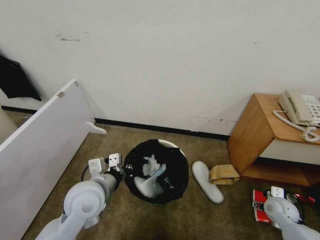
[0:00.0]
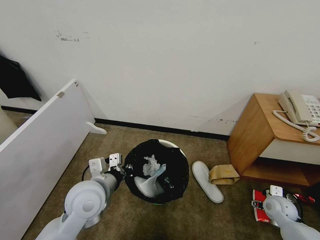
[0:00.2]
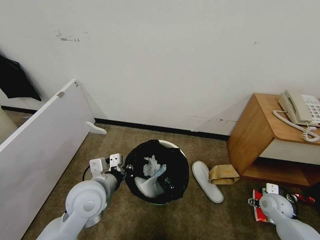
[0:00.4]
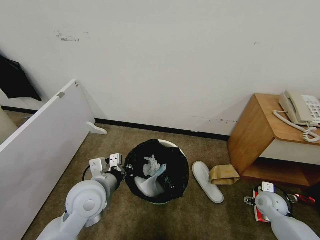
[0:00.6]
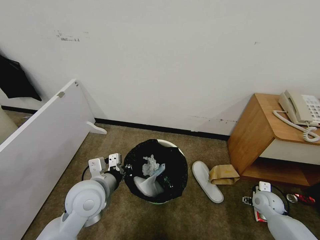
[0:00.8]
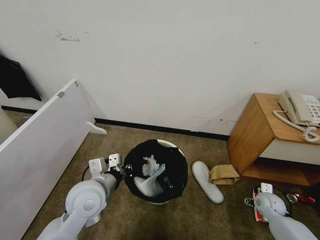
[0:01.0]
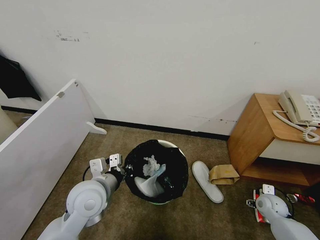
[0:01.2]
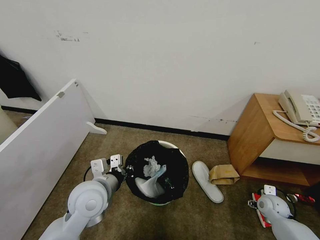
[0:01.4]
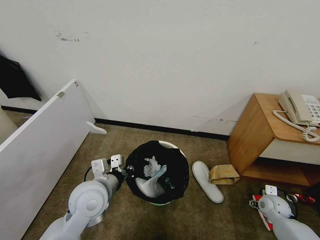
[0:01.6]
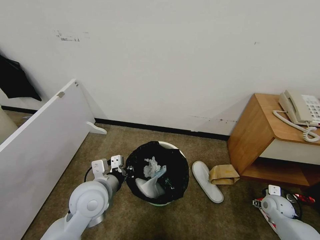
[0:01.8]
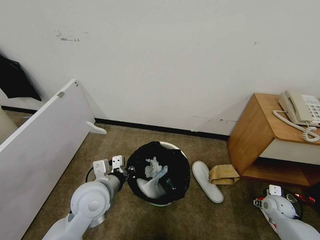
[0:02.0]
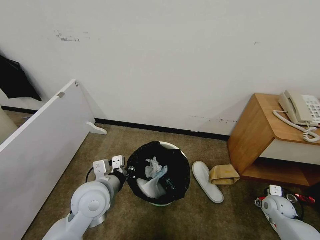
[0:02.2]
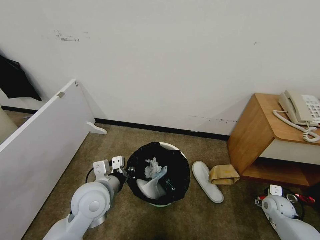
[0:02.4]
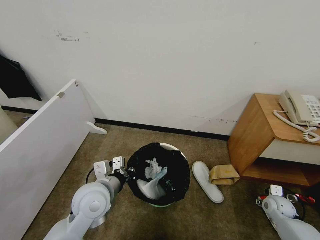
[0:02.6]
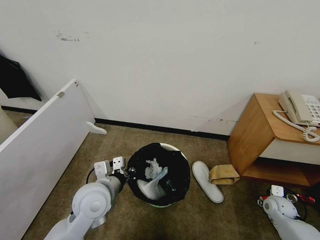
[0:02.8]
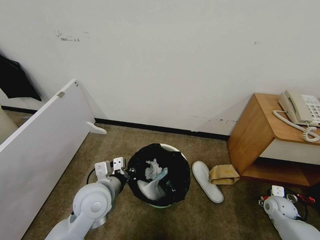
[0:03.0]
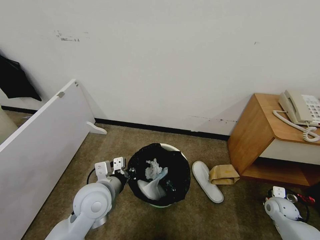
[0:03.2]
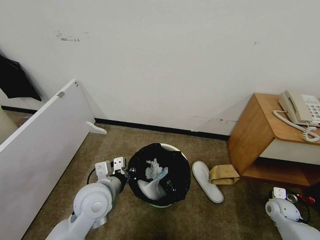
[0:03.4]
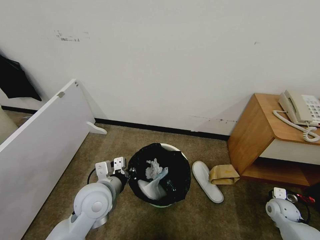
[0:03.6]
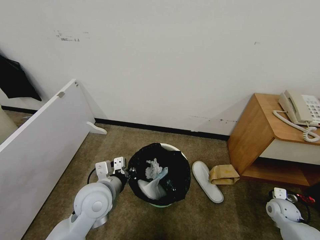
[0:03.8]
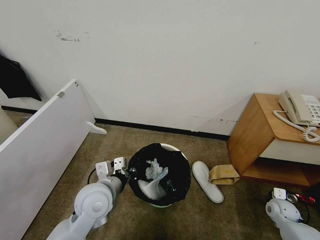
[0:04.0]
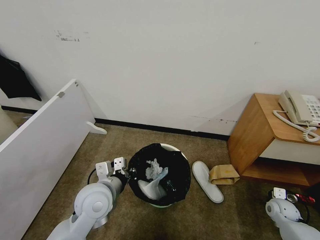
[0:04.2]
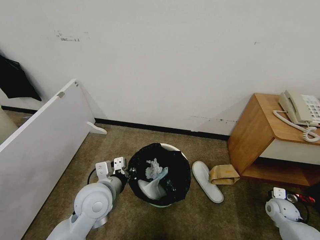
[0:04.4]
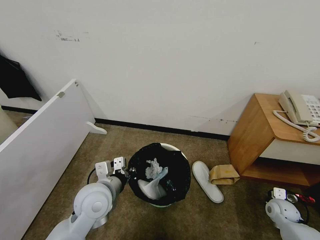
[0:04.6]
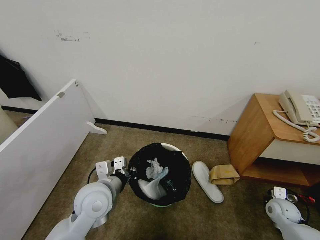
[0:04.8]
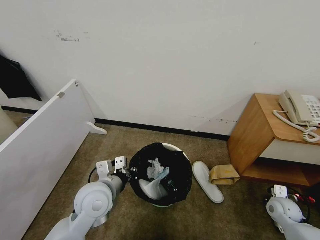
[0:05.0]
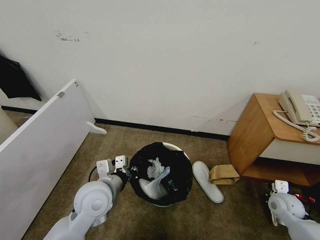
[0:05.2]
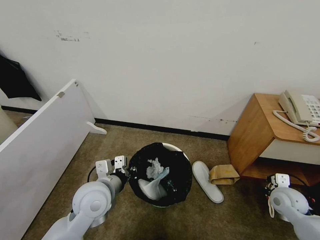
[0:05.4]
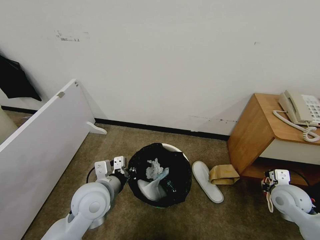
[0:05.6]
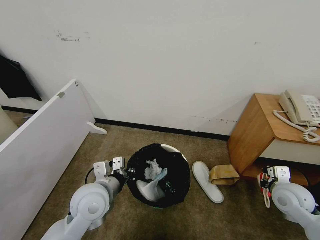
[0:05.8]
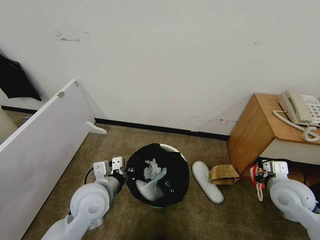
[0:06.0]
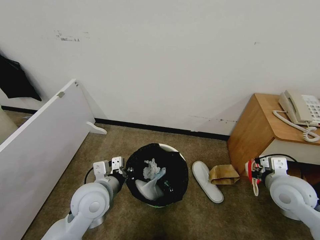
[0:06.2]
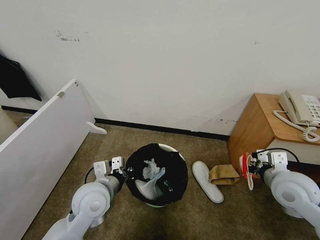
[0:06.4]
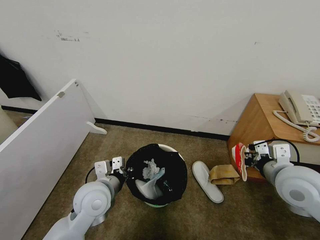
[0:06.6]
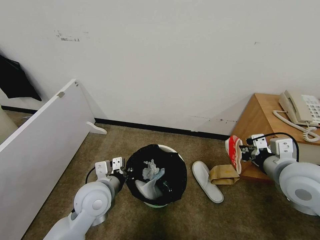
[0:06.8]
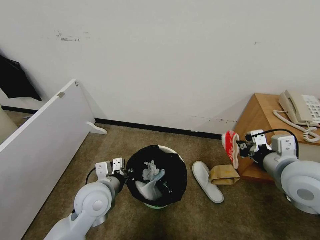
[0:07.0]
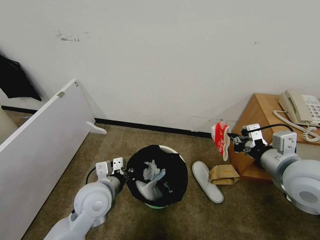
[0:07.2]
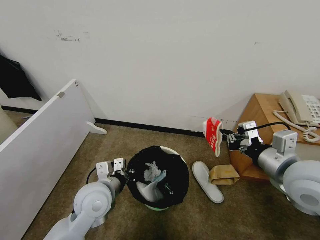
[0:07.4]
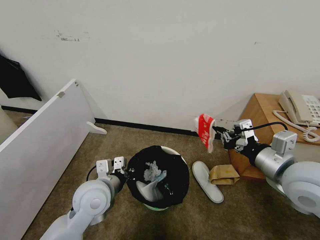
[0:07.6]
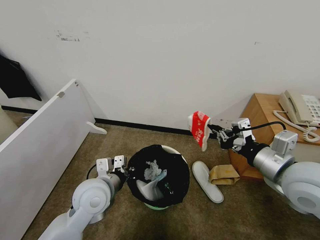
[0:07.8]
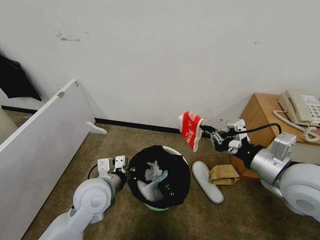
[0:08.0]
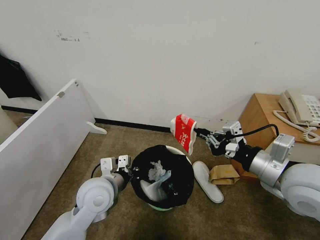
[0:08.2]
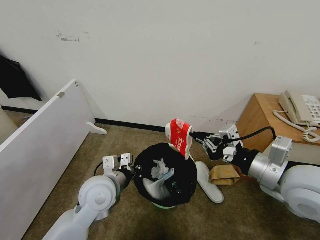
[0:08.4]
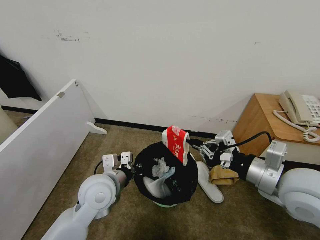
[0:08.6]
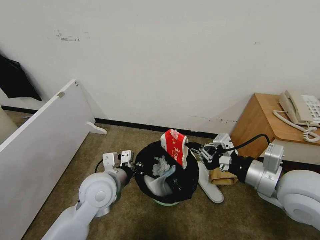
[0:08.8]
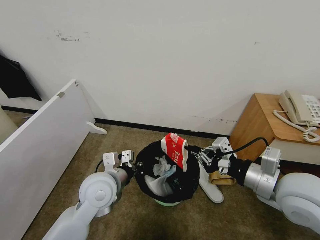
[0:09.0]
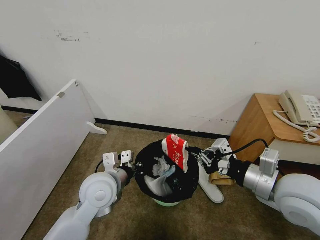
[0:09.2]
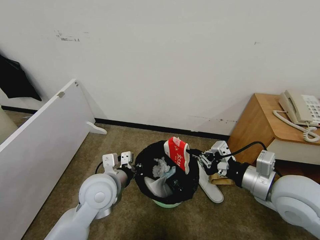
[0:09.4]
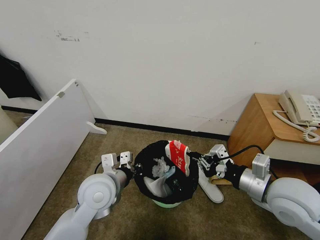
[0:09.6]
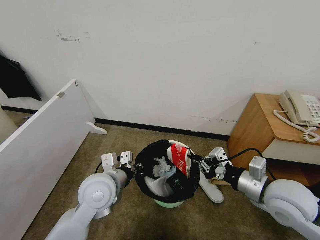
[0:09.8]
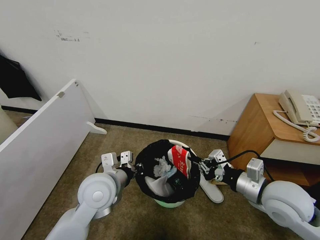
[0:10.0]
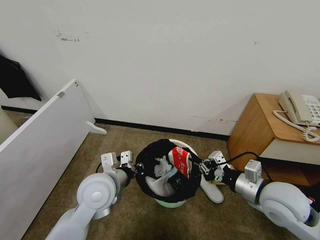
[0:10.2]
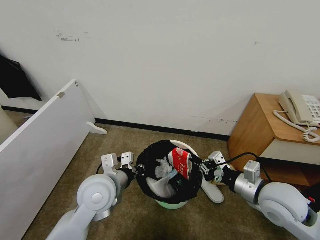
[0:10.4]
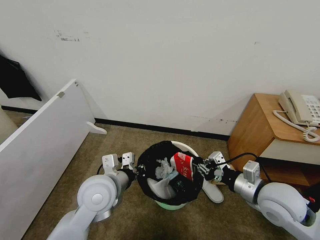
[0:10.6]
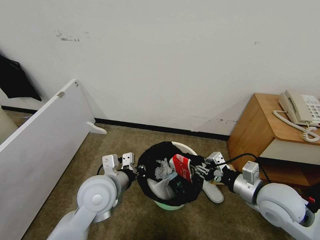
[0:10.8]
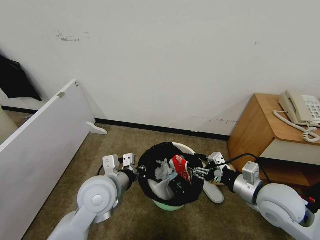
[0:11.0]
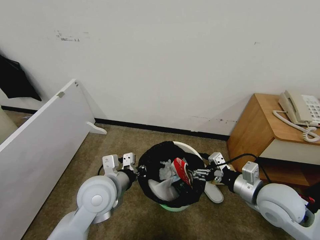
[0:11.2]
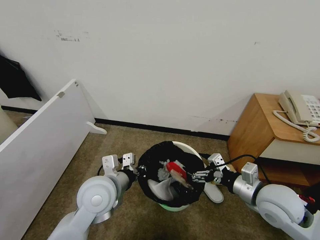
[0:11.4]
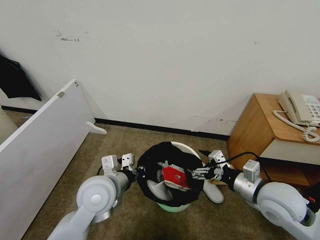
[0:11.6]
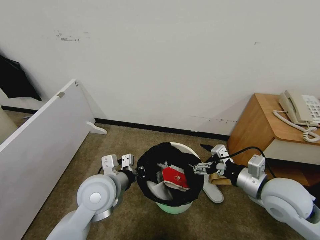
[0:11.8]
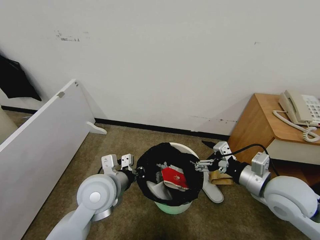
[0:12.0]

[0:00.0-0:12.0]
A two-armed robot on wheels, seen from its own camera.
Task of the whole recording: Pick up the trash bin, then pick up the garbage from the floor and place it into the trash bin.
0:00.0 to 0:03.0: There are only small adjustments of the grippers.
0:03.0 to 0:04.4: The right gripper closes its fingers.
0:04.4 to 0:06.0: The right gripper moves upward and to the left, approximately 20 cm.
0:06.0 to 0:07.6: The right gripper is displaced upward and to the left by some 15 cm.
0:09.0 to 0:10.4: The right gripper heads downward, covering roughly 10 cm.
0:10.4 to 0:12.0: The right gripper opens up.

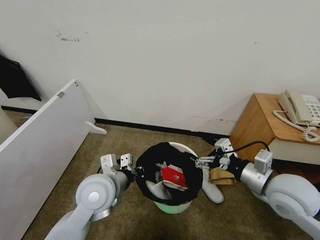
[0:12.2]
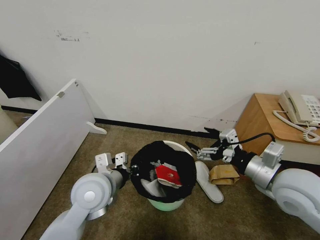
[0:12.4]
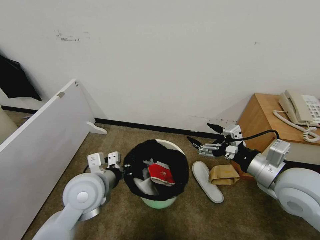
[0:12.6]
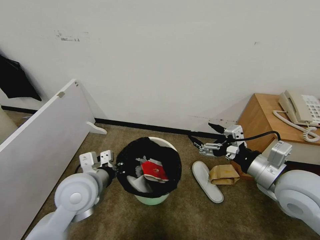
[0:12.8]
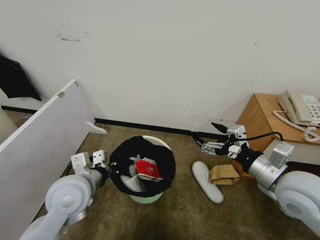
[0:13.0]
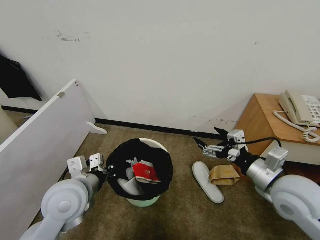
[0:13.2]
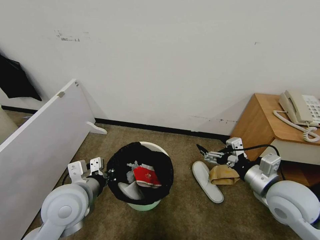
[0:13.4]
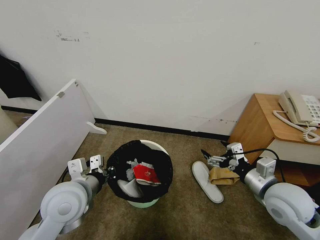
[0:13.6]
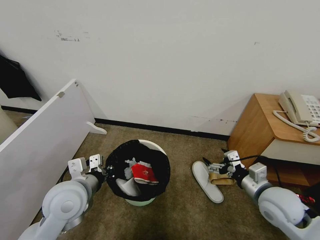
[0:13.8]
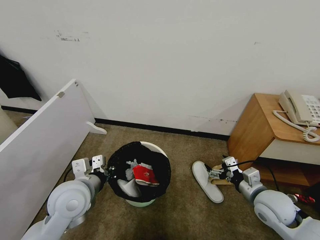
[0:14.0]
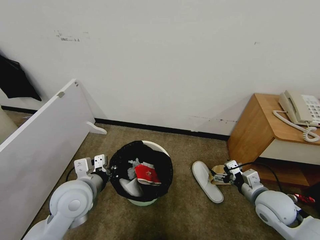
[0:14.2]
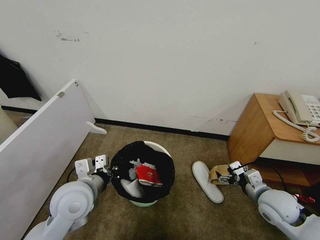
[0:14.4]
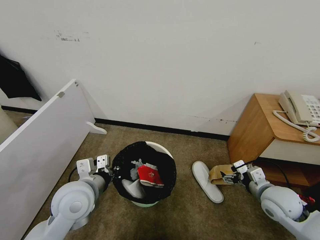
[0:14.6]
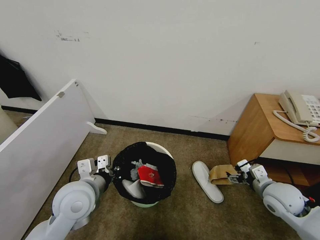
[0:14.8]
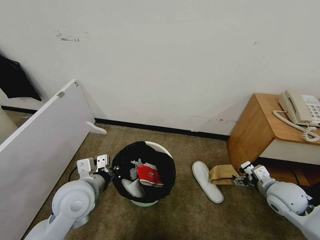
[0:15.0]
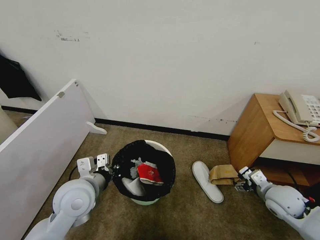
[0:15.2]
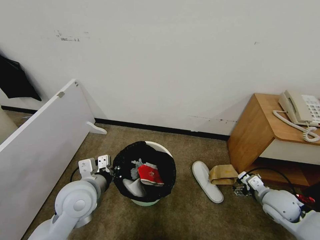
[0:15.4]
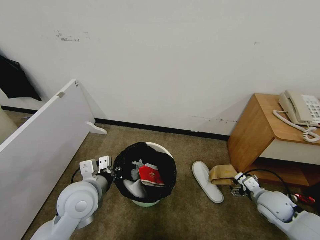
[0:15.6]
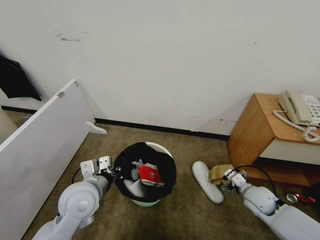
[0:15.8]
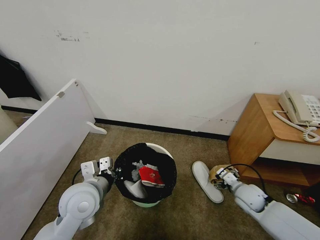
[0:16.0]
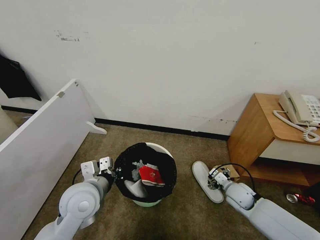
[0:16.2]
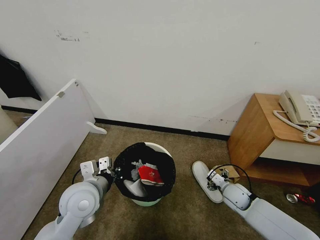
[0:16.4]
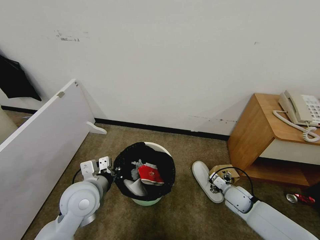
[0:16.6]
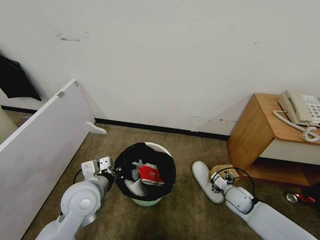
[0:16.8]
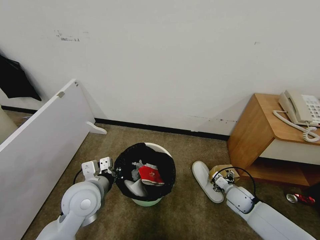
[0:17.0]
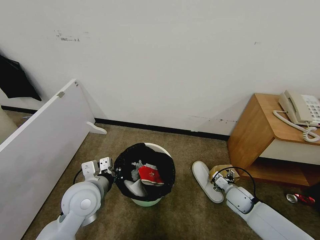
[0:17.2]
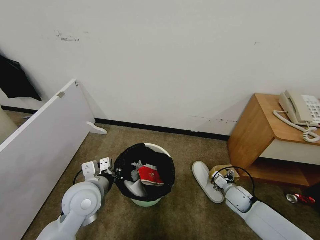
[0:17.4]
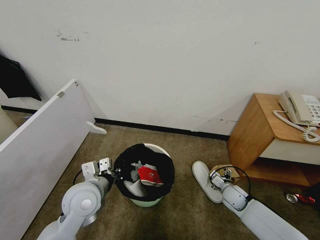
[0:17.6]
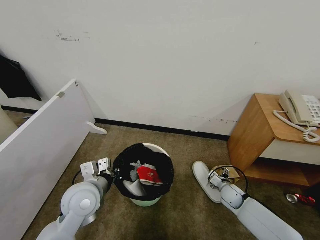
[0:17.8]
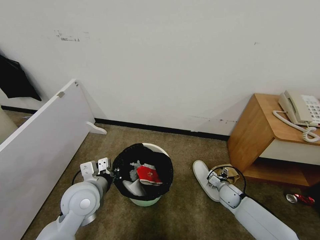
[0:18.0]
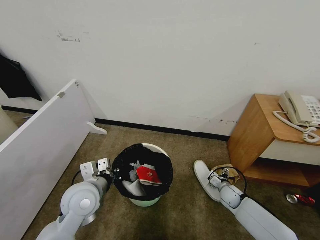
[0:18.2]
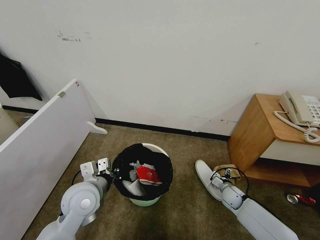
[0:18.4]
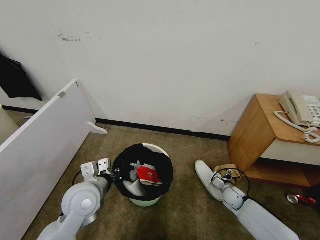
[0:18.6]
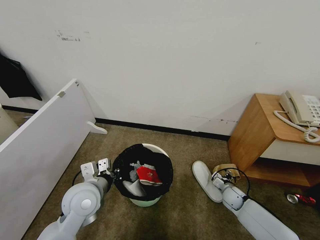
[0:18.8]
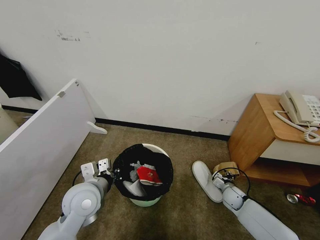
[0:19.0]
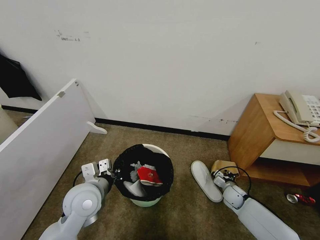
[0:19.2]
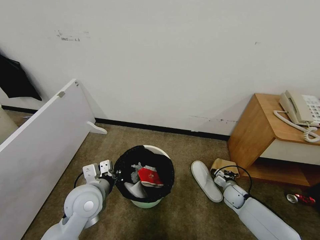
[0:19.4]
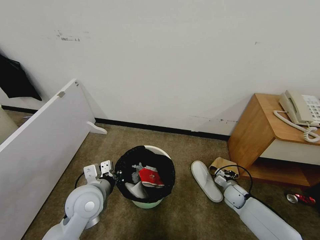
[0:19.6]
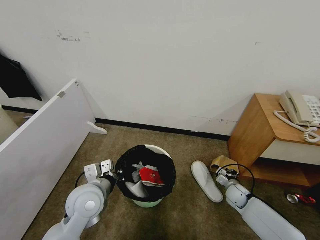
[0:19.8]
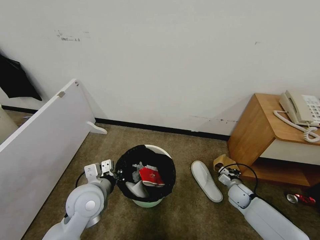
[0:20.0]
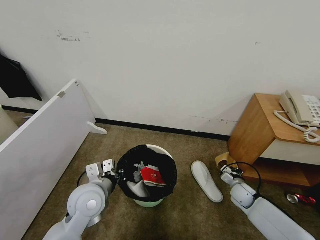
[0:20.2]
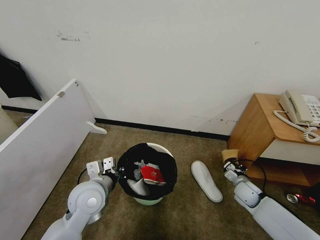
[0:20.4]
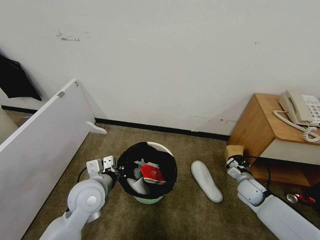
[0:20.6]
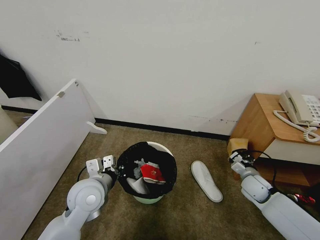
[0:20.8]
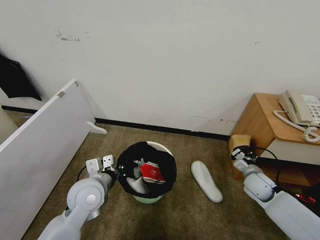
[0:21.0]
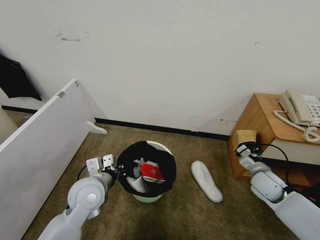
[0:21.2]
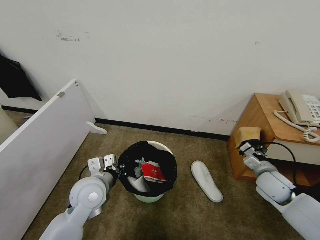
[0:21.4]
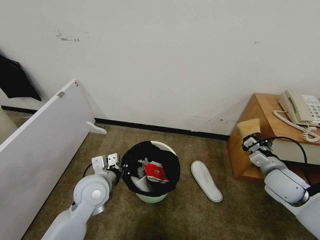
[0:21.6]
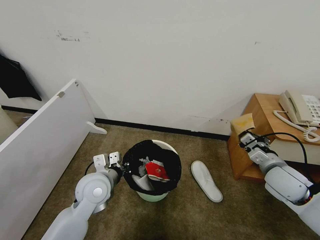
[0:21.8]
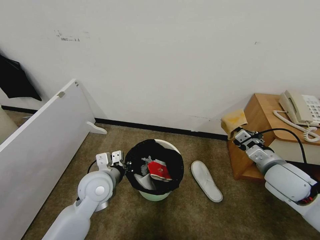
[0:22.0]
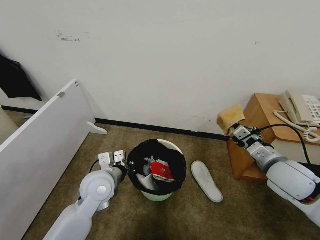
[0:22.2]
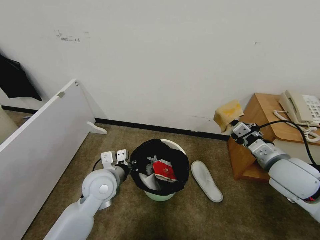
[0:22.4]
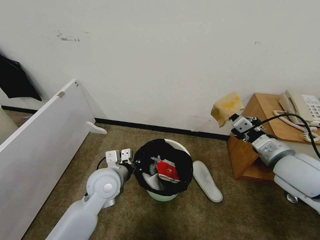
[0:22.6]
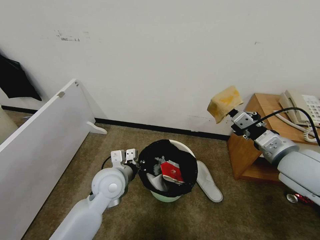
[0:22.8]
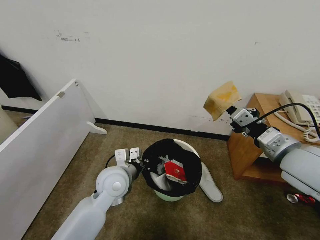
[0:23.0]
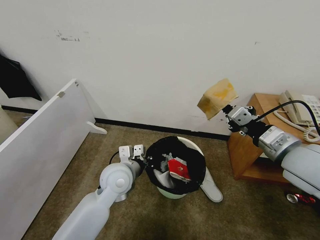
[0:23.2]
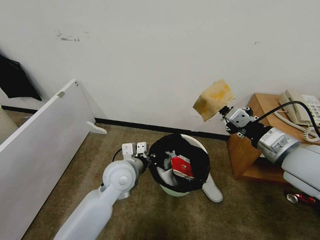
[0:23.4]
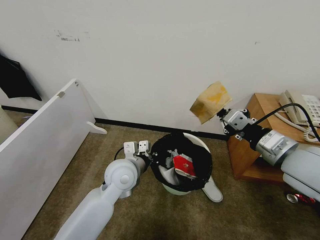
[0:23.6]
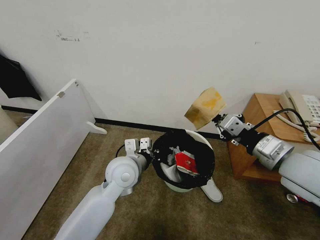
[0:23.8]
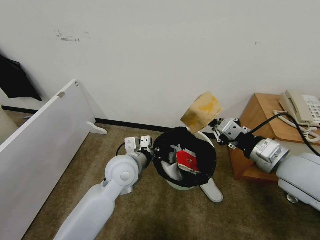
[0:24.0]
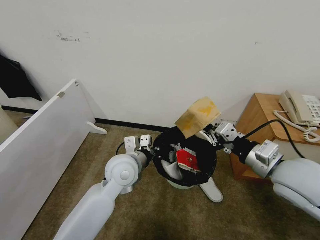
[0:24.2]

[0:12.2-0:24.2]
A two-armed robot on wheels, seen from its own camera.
Task of the whole recording: Pick up the trash bin, then pick up the garbage from the floor and place it into the trash bin.
0:12.2 to 0:13.8: The left gripper is displaced to the left by approximately 5 cm. Meanwhile the right gripper is displaced downward by approximately 10 cm.
0:13.8 to 0:15.2: The right gripper goes about 10 cm to the right and downward.
0:15.2 to 0:16.6: The right gripper is displaced downward and to the left by approximately 15 cm.
0:16.6 to 0:18.2: The right gripper moves downward, some 5 cm.
0:18.2 to 0:19.8: The right gripper closes up.
0:19.8 to 0:21.2: The right gripper goes approximately 15 cm upward.
0:21.2 to 0:22.6: The left gripper shifts by roughly 5 cm. The right gripper heads upward, covering about 20 cm.
0:22.6 to 0:24.2: The left gripper heads to the right, covering some 5 cm.
